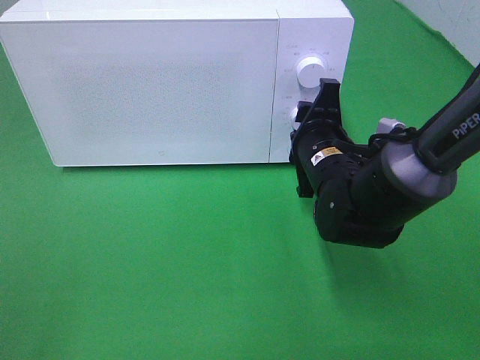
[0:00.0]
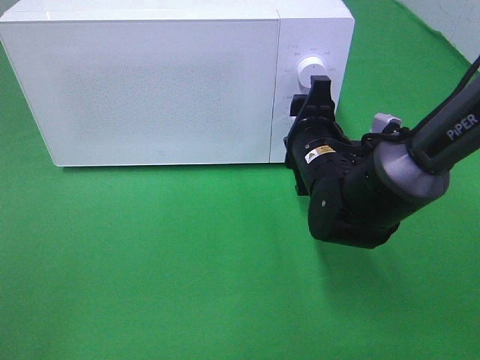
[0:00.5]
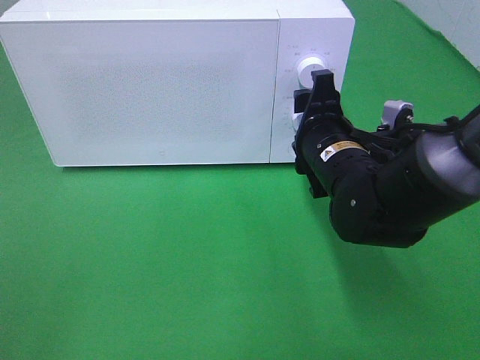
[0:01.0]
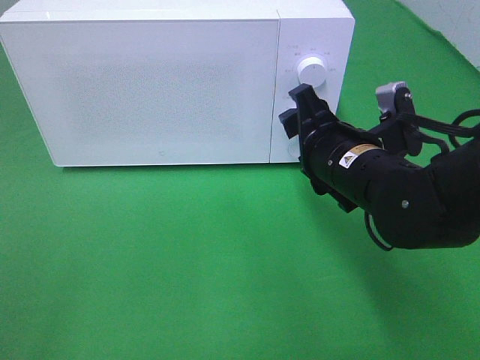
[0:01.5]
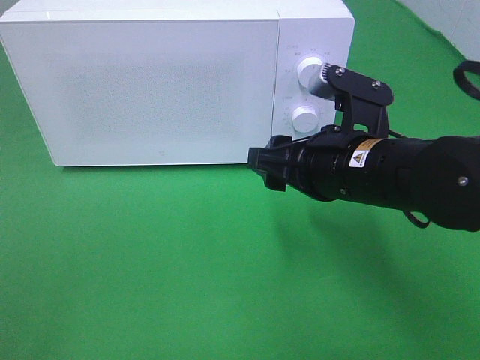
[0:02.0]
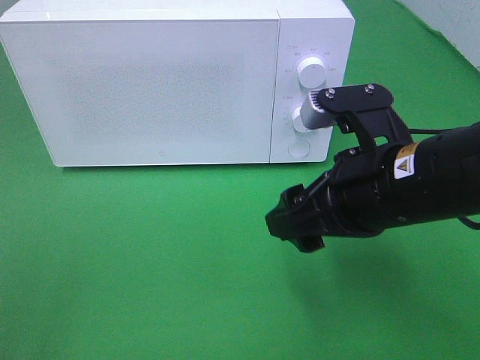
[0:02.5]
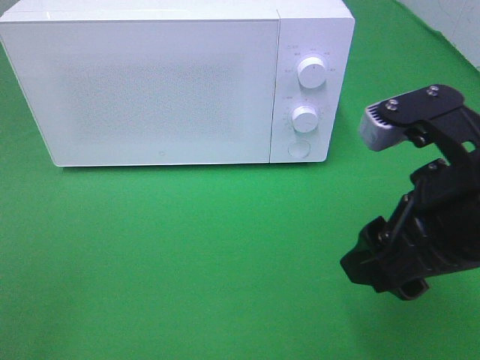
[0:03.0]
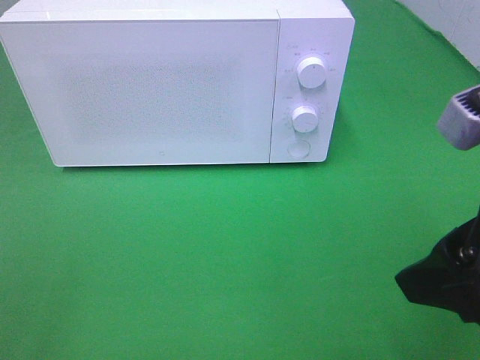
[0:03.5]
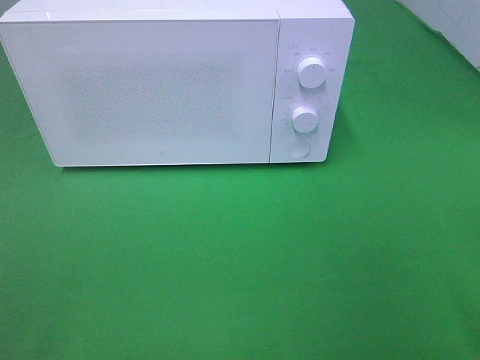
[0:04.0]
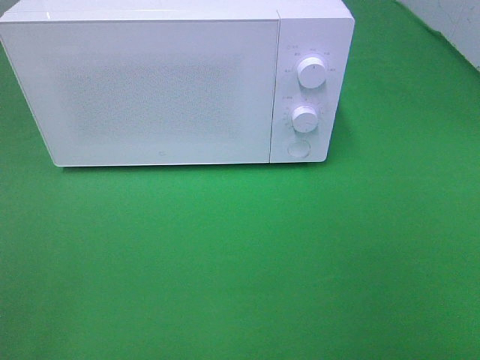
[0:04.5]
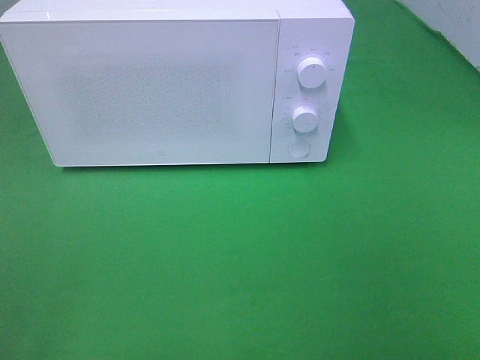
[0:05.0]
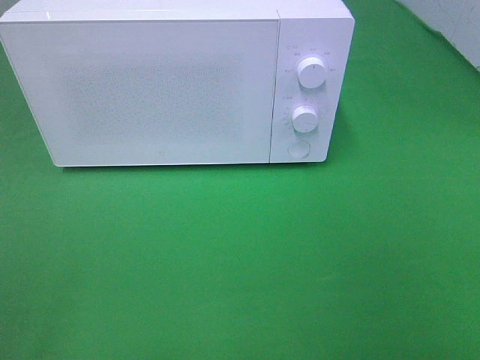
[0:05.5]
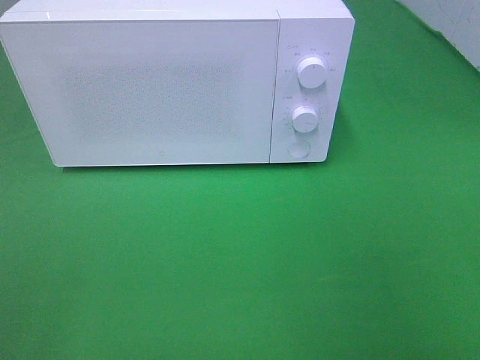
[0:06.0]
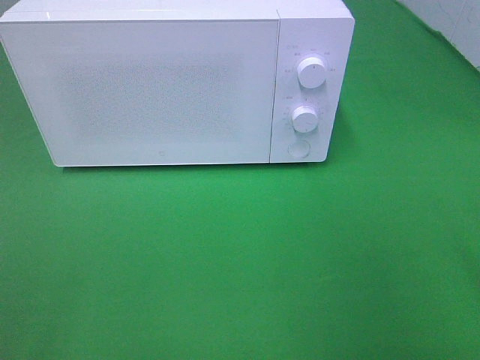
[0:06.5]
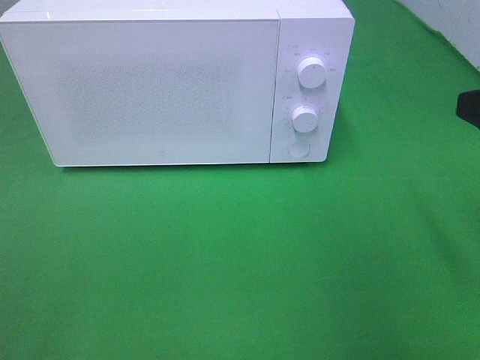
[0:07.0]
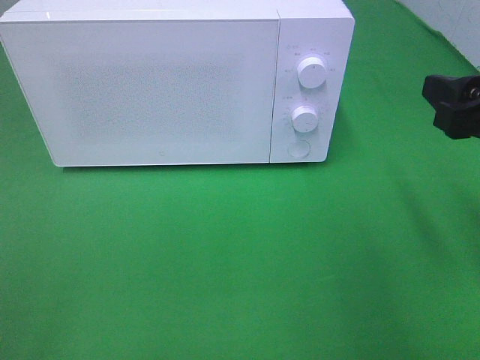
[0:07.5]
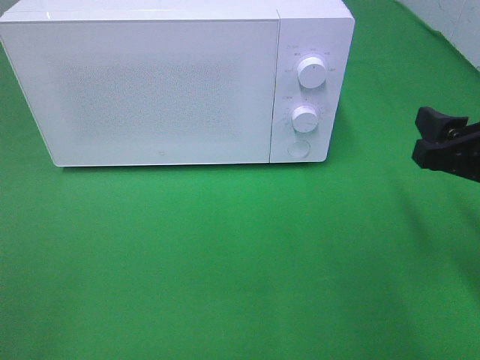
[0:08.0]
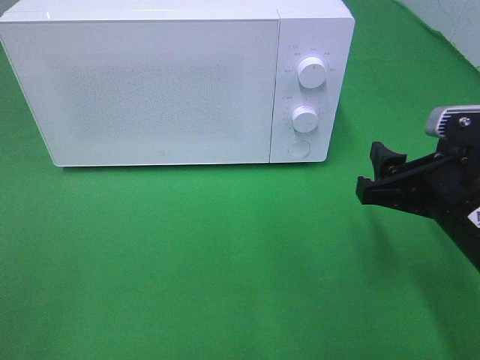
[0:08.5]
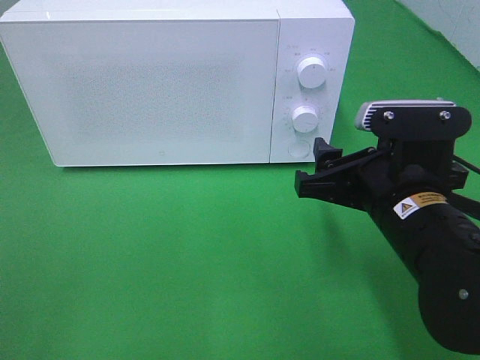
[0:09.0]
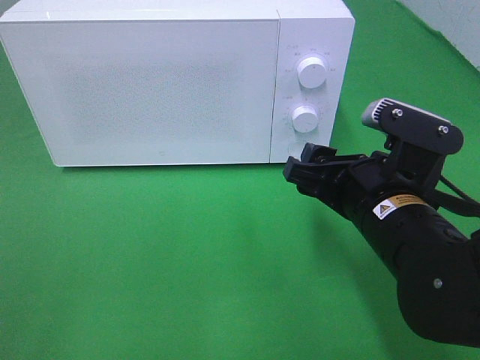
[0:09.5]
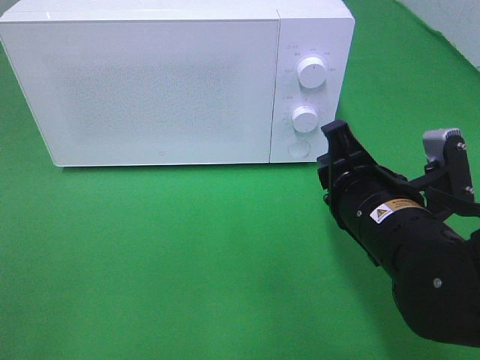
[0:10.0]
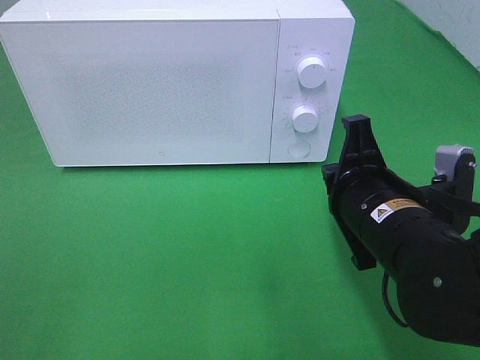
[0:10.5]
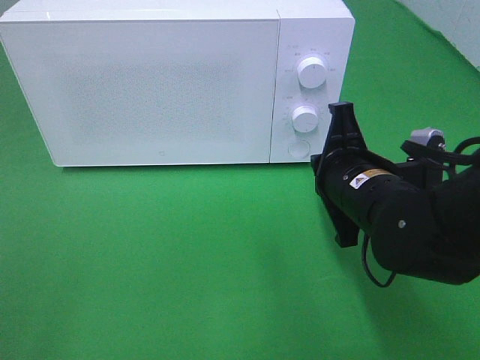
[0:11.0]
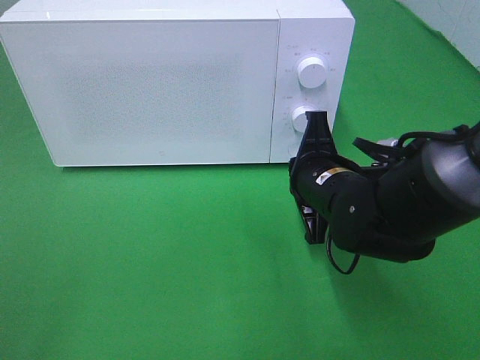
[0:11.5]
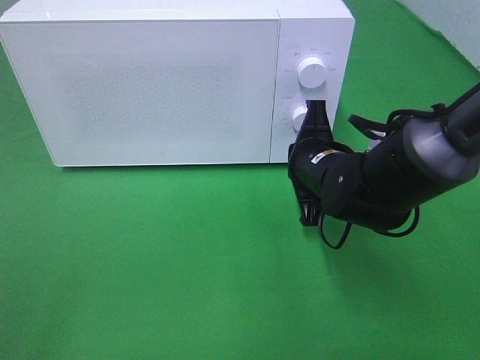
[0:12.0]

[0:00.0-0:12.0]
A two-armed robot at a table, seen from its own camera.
Task of the whole recording: Heat the burger.
0.0 to 2.0 s: The right gripper shifts roughly 10 cm backward and upward.
2.0 to 4.0 s: The right gripper heads to the right, backward and upward, covering some 25 cm.
6.0 to 8.0 s: The right gripper travels forward and downward by about 20 cm.
8.0 to 10.0 s: The right gripper is displaced to the left by approximately 10 cm, and closes.
10.0 to 12.0 s: The right gripper moves forward, some 10 cm, and closes its fingers.

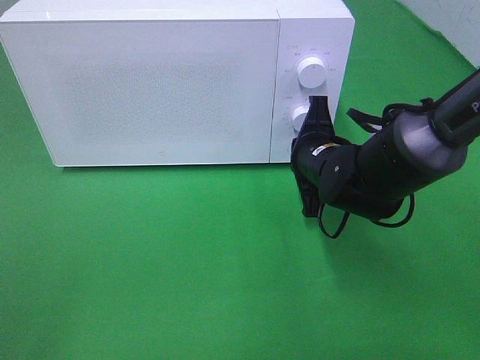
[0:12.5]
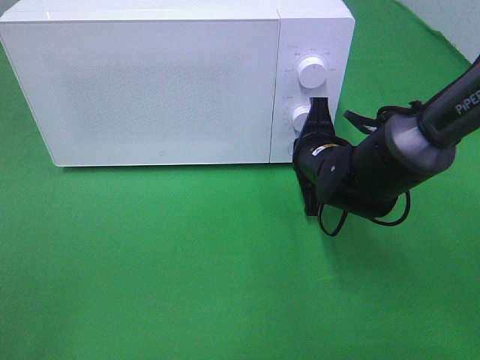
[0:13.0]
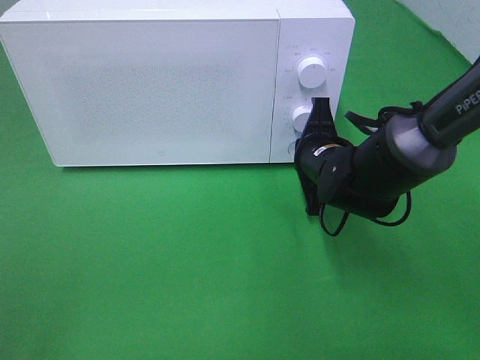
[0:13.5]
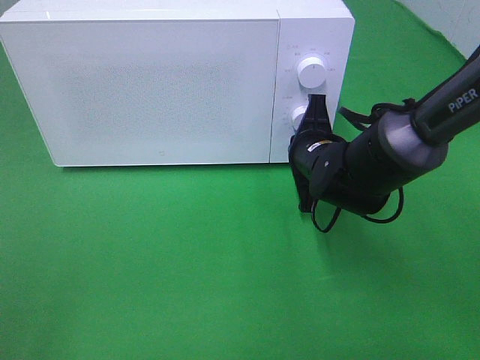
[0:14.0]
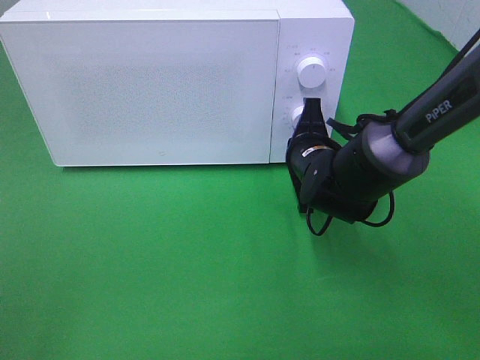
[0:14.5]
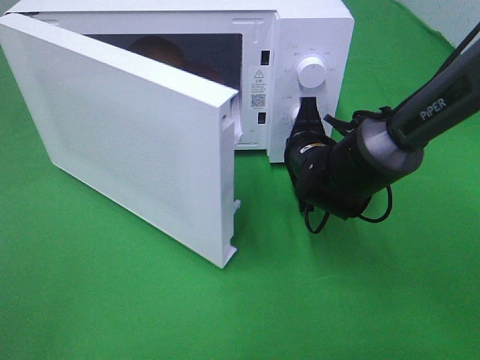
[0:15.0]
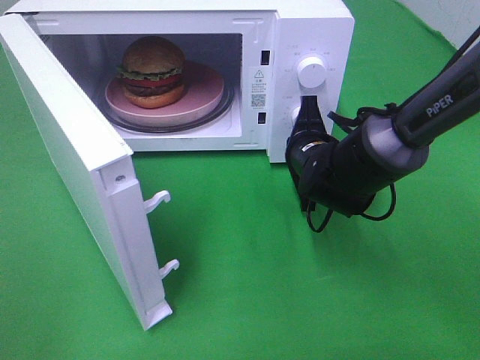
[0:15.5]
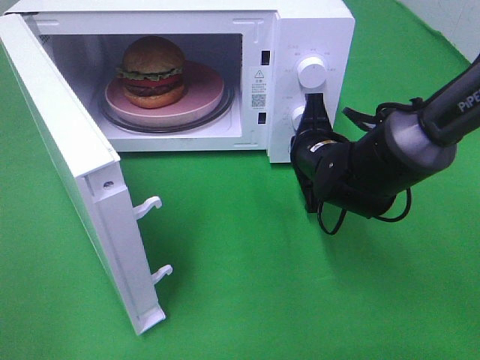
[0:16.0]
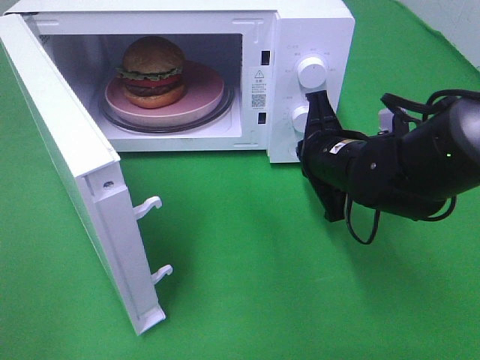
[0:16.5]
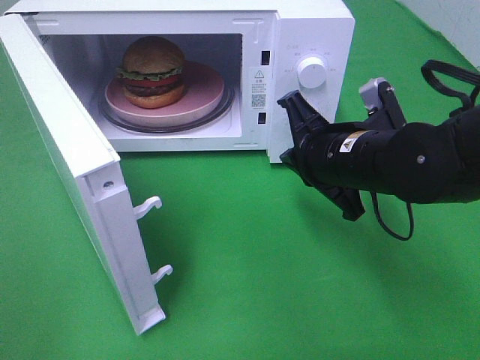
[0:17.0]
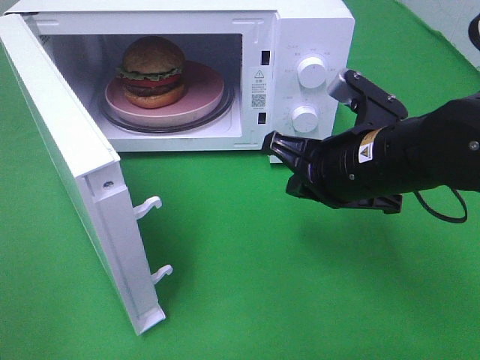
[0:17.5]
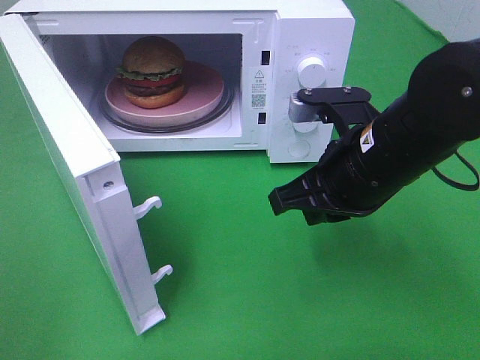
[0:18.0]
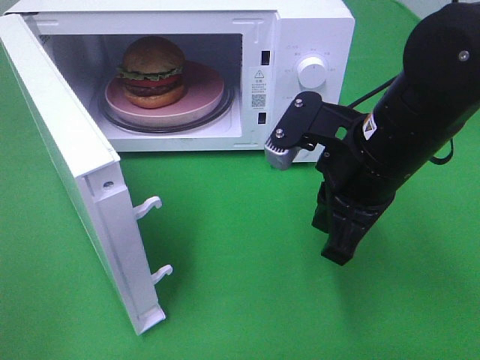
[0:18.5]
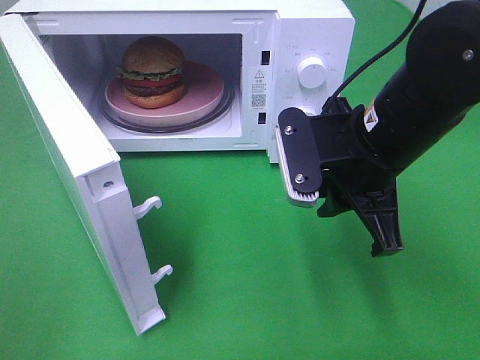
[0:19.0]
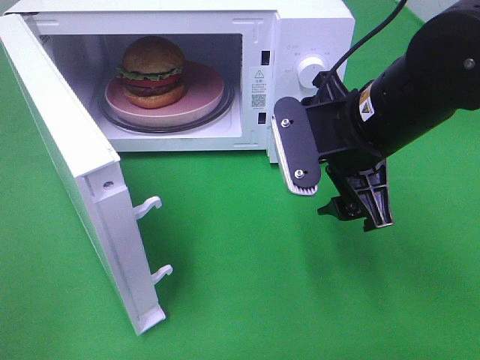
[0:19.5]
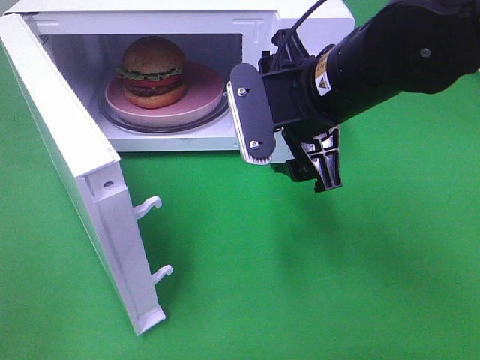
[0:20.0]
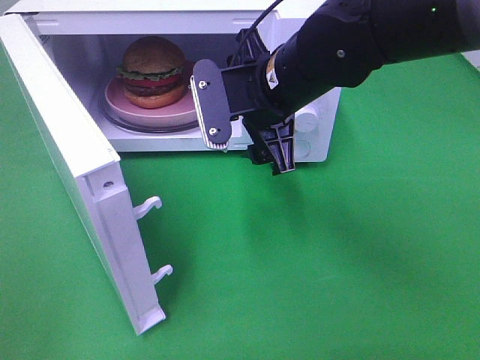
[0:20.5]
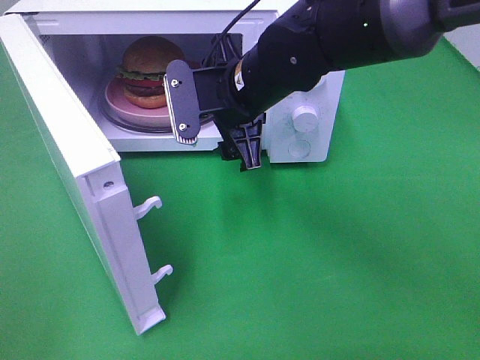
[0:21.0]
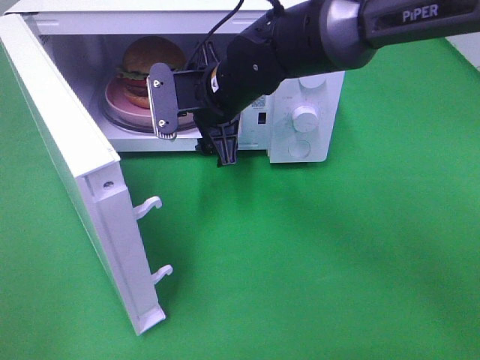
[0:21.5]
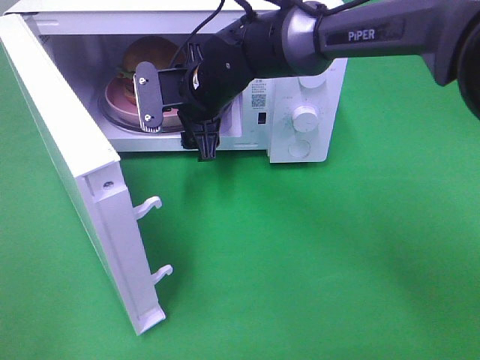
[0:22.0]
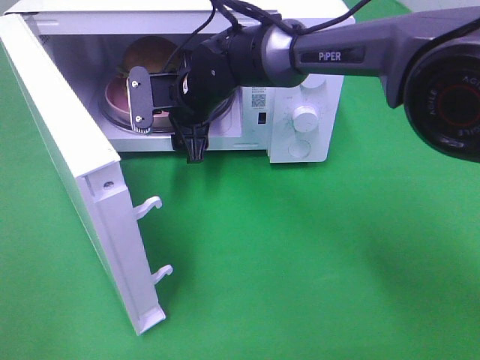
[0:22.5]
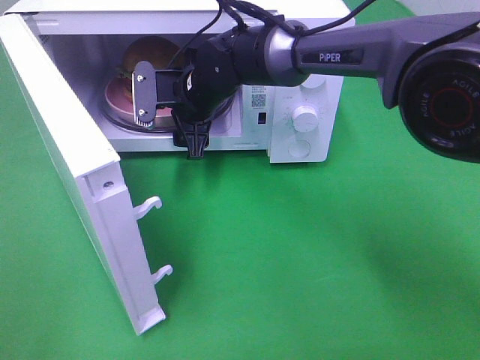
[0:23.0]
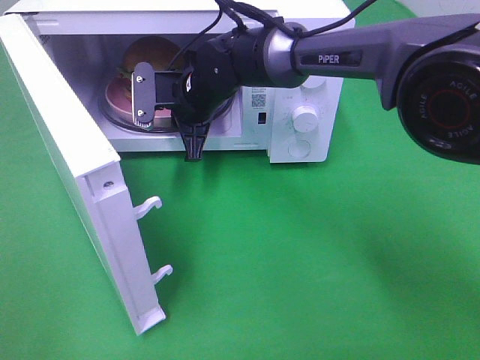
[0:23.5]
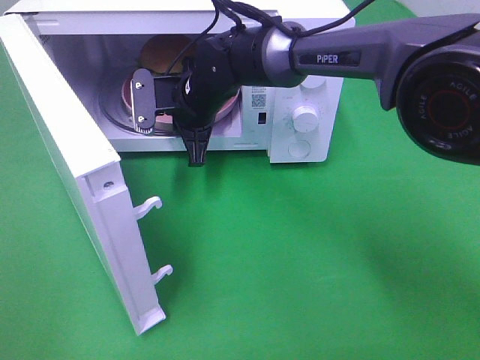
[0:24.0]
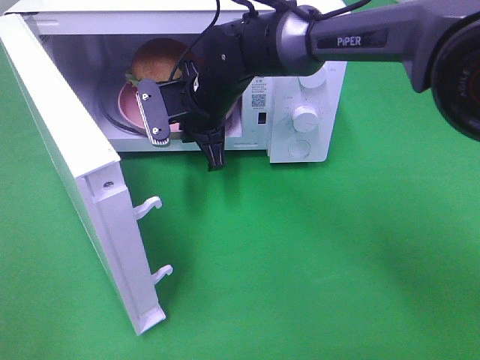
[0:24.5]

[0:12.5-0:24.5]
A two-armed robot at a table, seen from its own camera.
Task of the whole recording: Heat the burger.
Step, 12.5 to 16.0 s: Right hand: press the switch.
Step, 16.5 to 24.0 s: Right hand: grab the plate with the hamburger.
12.5 to 14.5 s: The grippers move only a little.
14.5 to 16.5 s: The right gripper changes place by roughly 5 cm.
16.5 to 18.5 s: The right gripper shifts about 10 cm upward and backward.
18.5 to 20.5 s: The right gripper moves forward and to the left, approximately 10 cm, and opens.
20.5 to 22.5 s: The right gripper travels forward, to the left and downward by about 15 cm.
22.5 to 24.5 s: The right gripper closes.

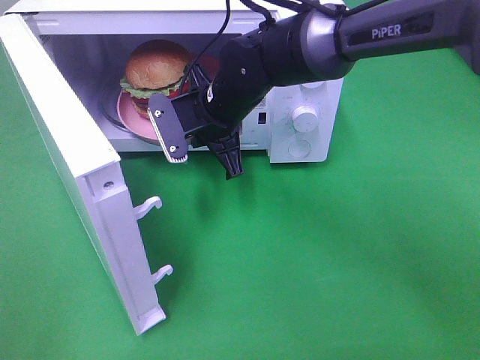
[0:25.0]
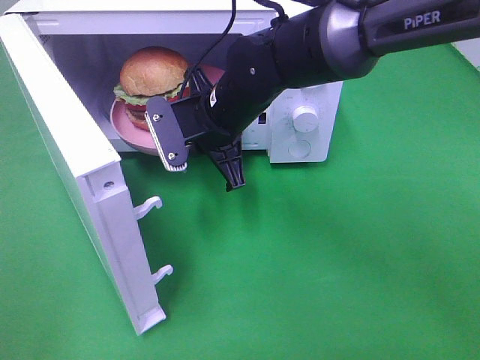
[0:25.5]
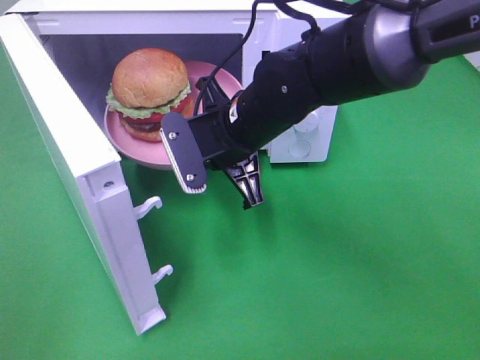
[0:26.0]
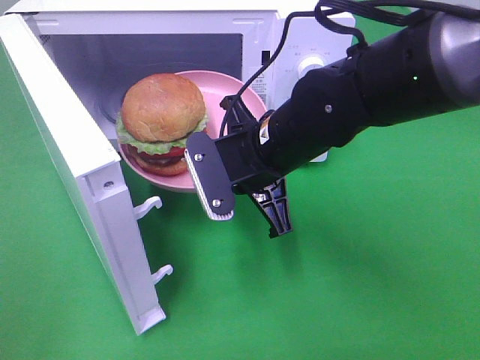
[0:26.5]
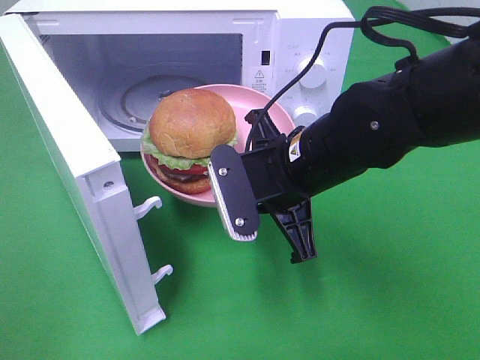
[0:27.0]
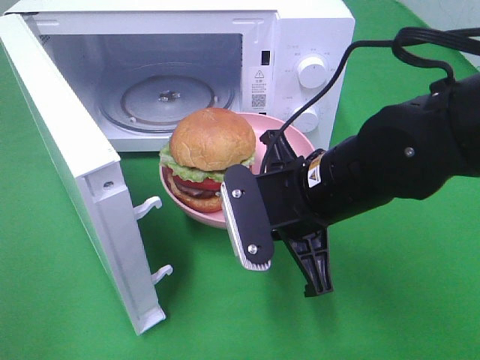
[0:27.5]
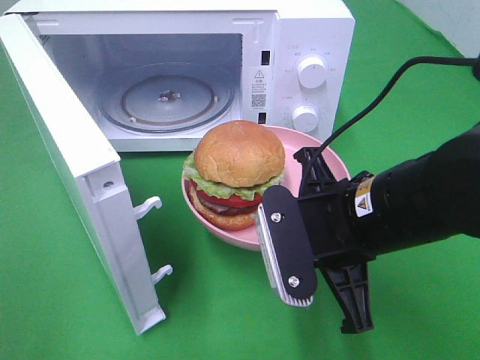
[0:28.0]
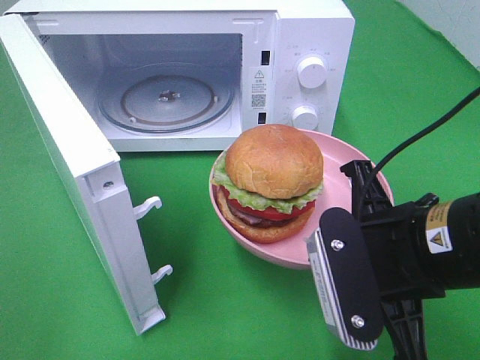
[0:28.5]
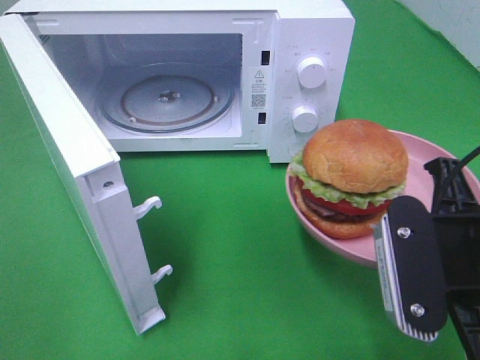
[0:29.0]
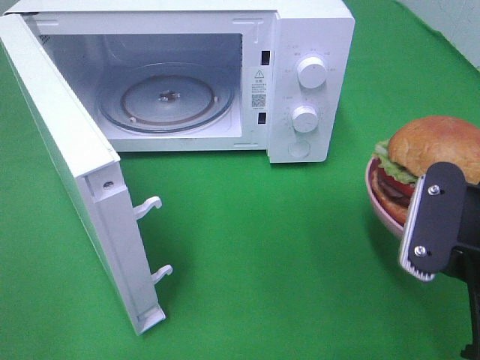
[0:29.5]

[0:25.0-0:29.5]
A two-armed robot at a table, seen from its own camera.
Task of the whole recording: Heat the burger.
25.0 to 27.0 s: The right gripper travels backward and to the right by roughly 15 cm.
27.0 to 29.5 s: The right gripper moves to the right and backward, roughly 20 cm.
